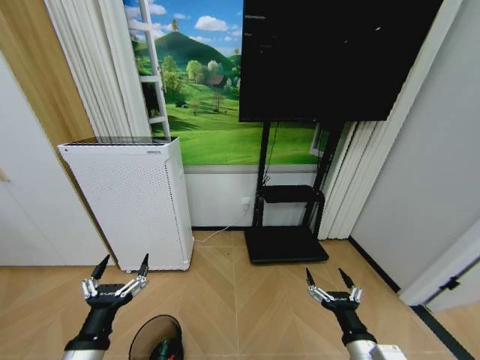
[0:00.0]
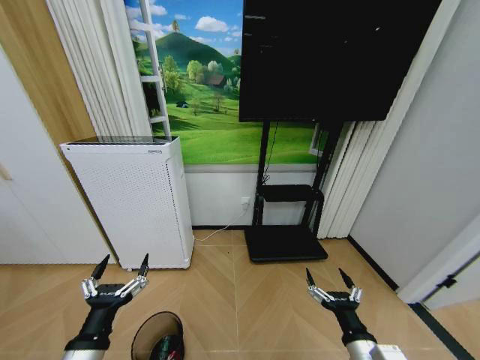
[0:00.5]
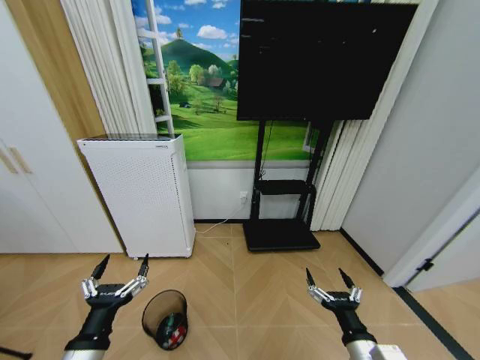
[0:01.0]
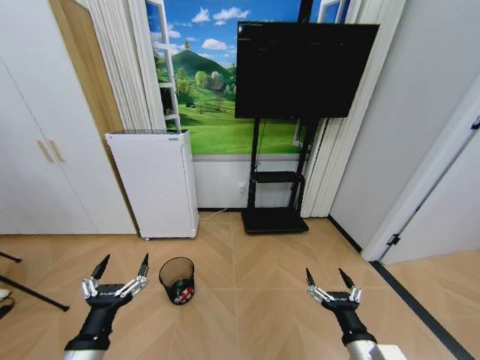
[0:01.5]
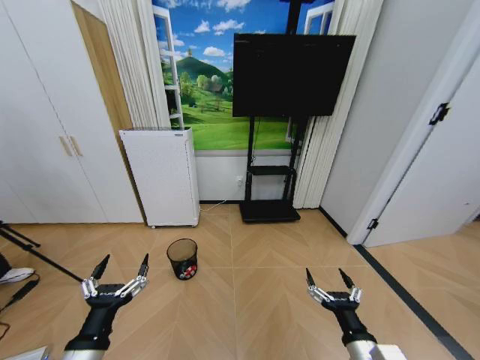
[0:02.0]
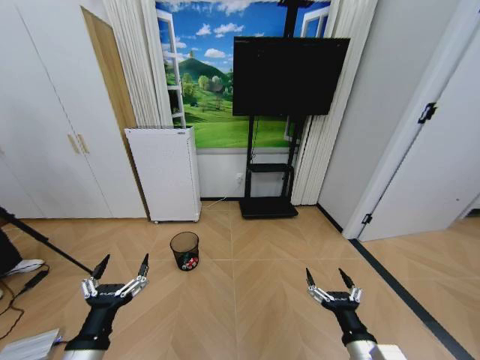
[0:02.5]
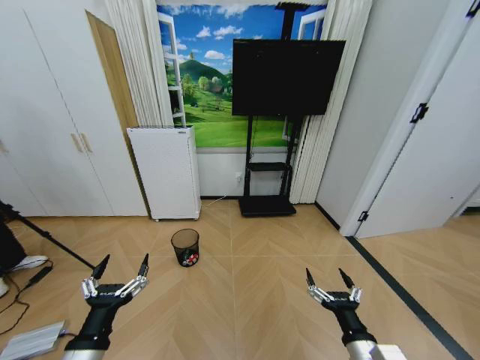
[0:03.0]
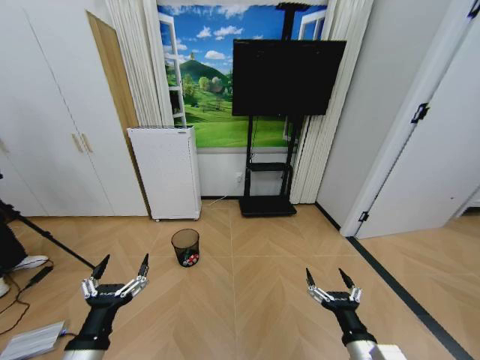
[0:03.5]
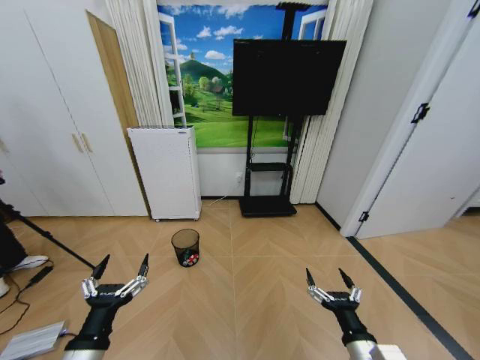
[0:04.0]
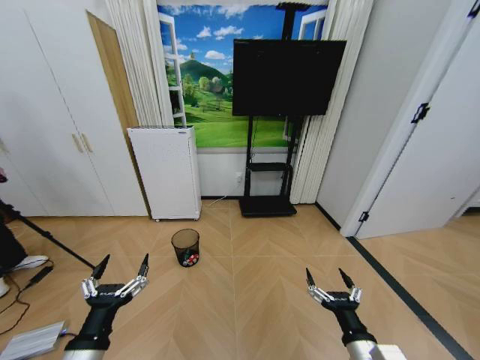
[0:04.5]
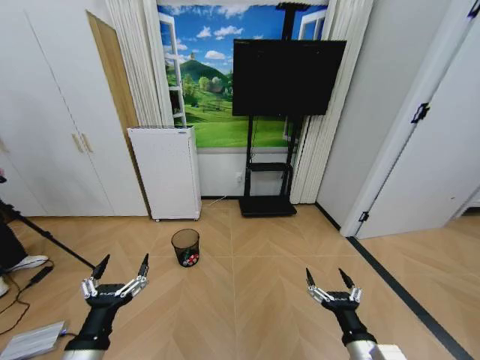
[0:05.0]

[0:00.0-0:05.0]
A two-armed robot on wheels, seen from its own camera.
Task of the whole recording: Pick up the trash bin and place the garbage on the floor into it.
0:02.5 to 0:05.0: The two grippers keep their place.
